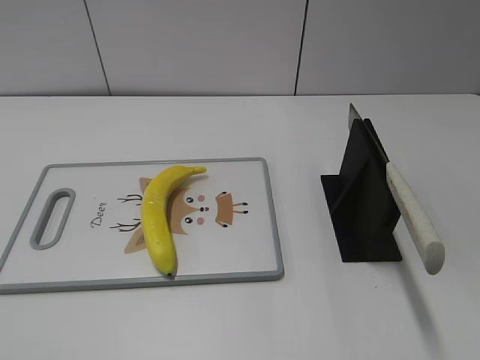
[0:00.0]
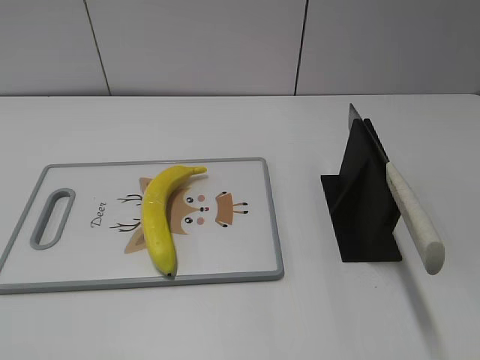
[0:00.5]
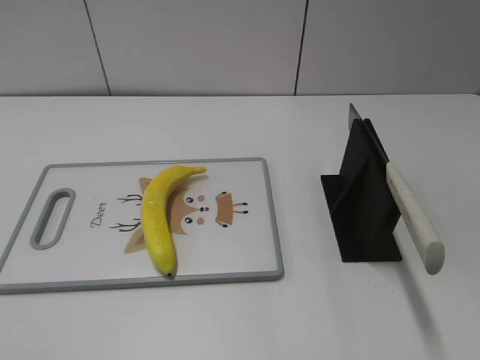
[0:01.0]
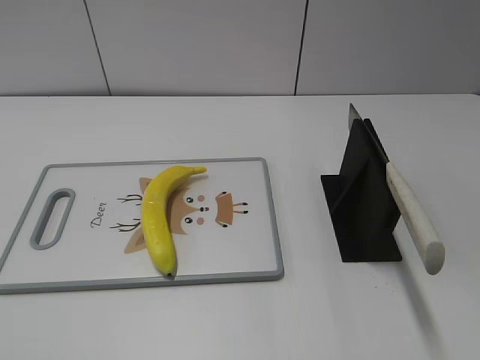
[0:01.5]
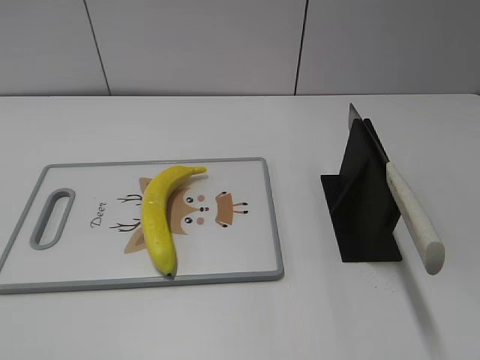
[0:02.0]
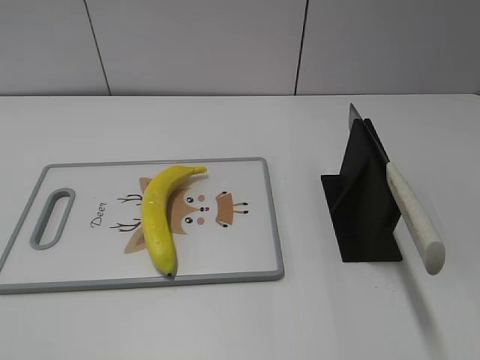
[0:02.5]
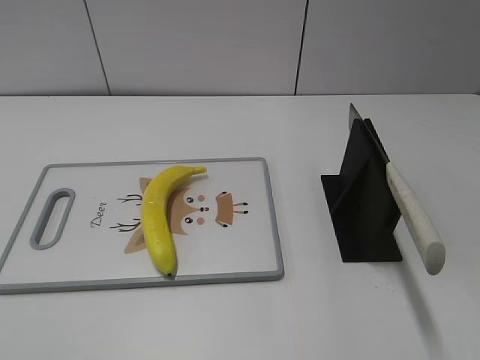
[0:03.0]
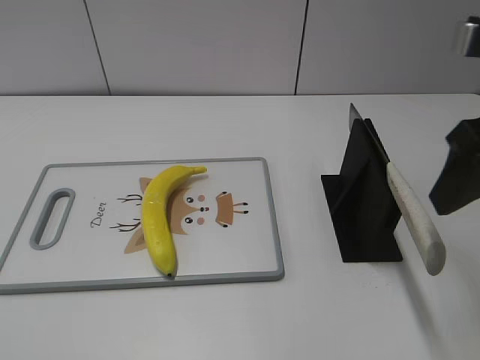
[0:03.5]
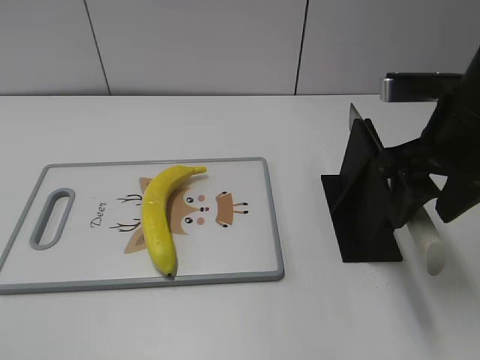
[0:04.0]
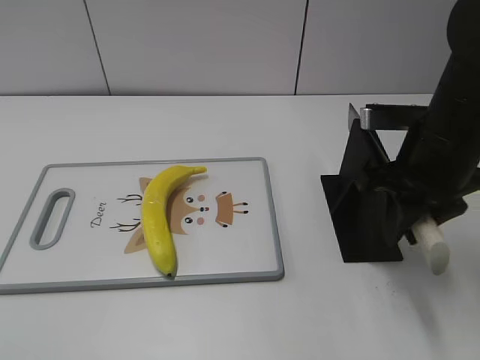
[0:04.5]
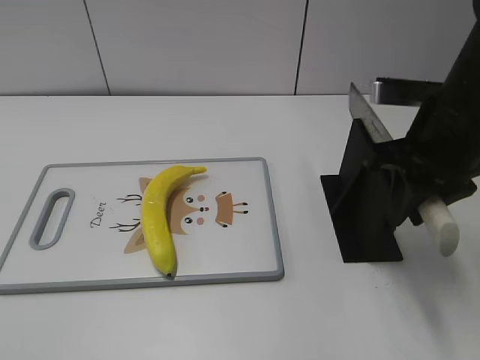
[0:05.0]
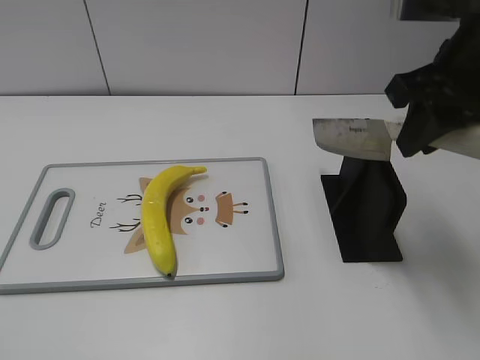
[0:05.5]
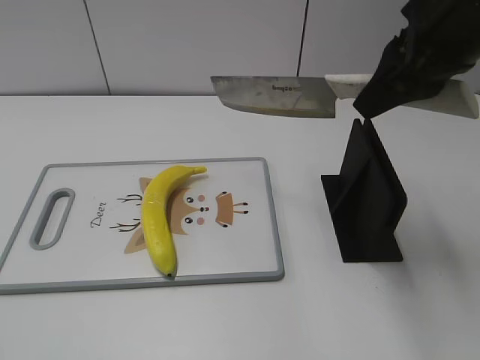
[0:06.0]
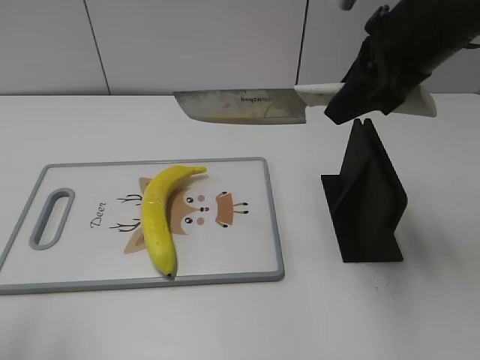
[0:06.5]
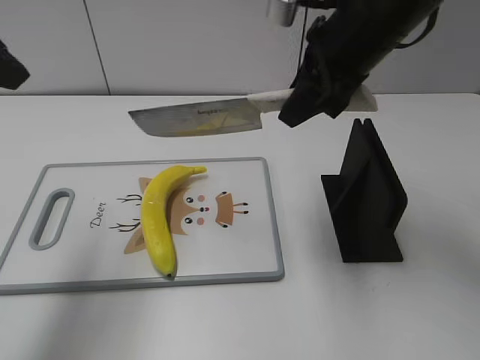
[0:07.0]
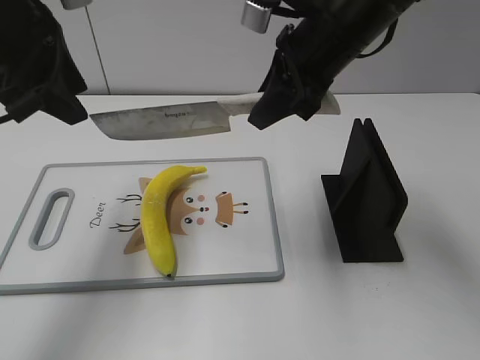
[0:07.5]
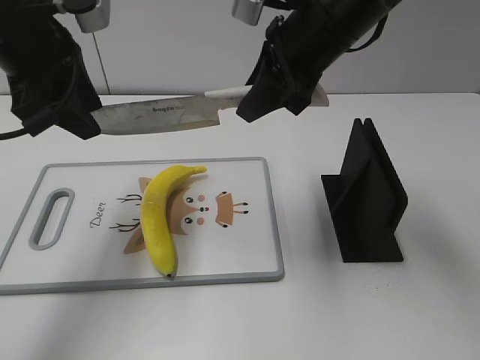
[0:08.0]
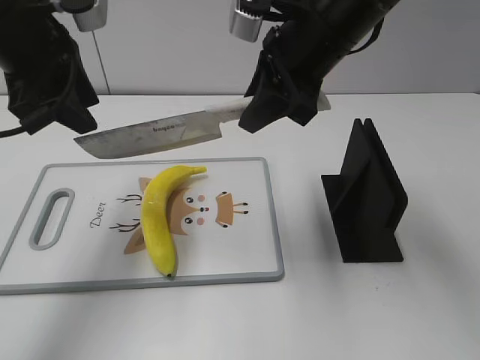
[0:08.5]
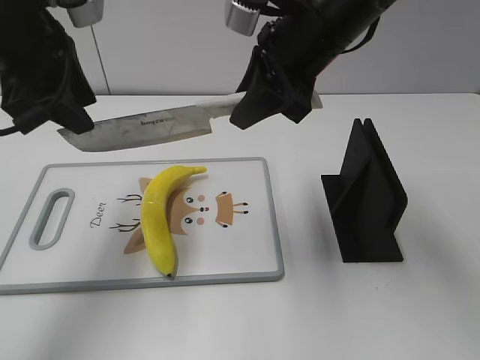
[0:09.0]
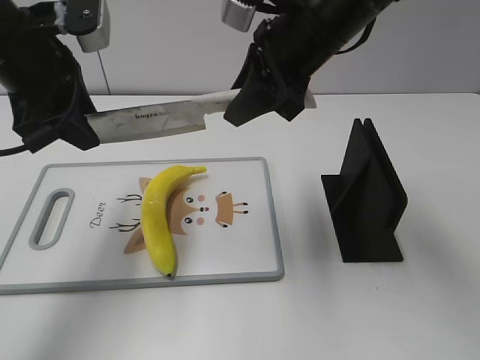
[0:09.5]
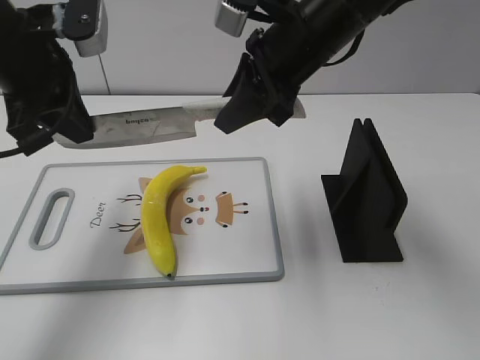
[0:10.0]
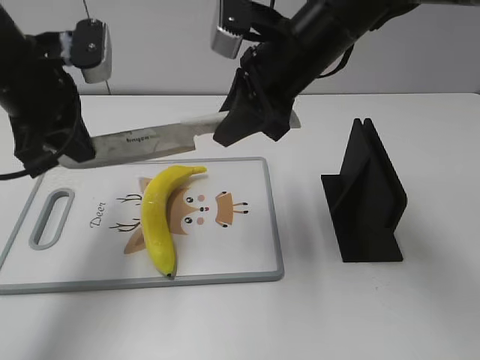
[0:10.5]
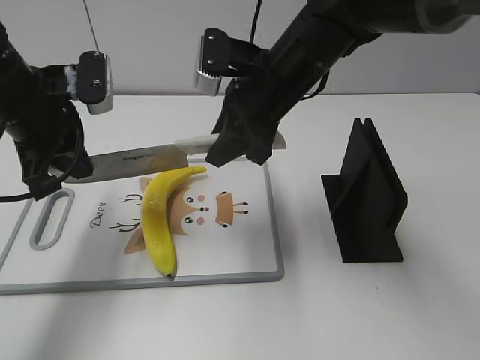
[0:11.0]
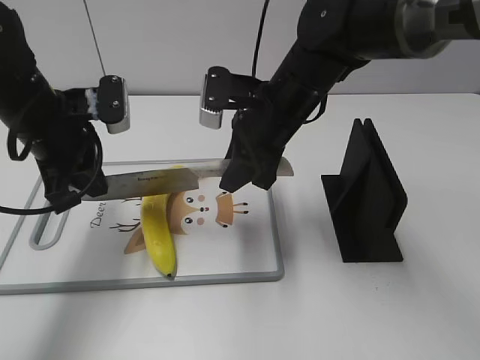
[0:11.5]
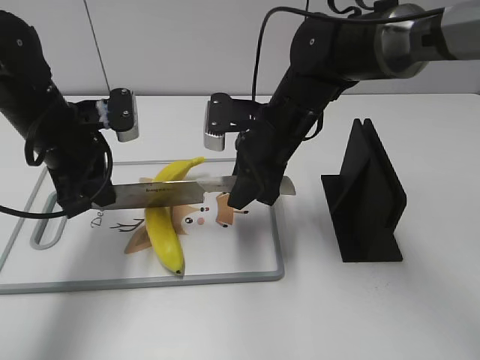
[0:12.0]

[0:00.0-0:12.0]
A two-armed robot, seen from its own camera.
Task of the whole recording: cut plastic banana.
Step, 0:00.0 to 0:05.5: Grab the knife handle with your right hand.
0:02.0 to 0:04.0: The right gripper moves forward, about 25 cm.
0:04.0 to 0:06.0: The right gripper is displaced upward by about 10 cm, and closes.
0:06.0 to 0:08.0: The left gripper shifts roughly 30 cm forward; the right gripper goes about 10 cm to the left, forward and downward.
0:08.0 to 0:10.0: The left gripper closes.
0:10.0 to 0:12.0: The grippers both shift downward by approximately 10 cm.

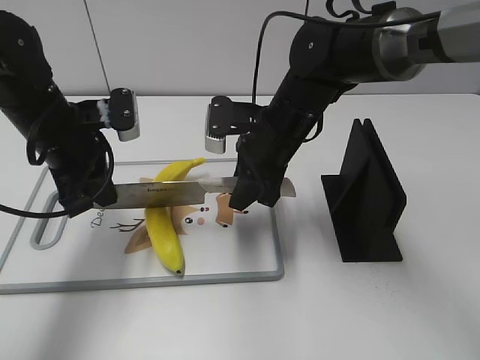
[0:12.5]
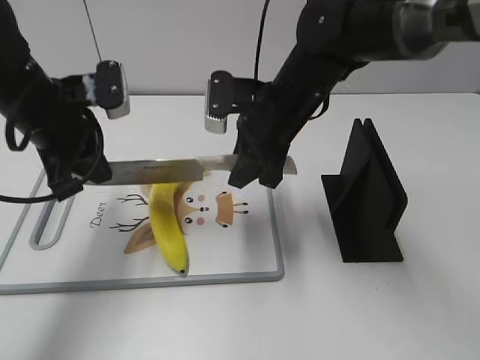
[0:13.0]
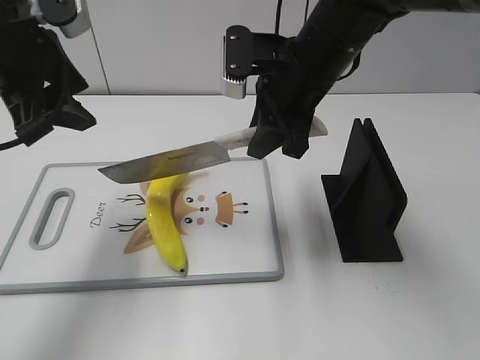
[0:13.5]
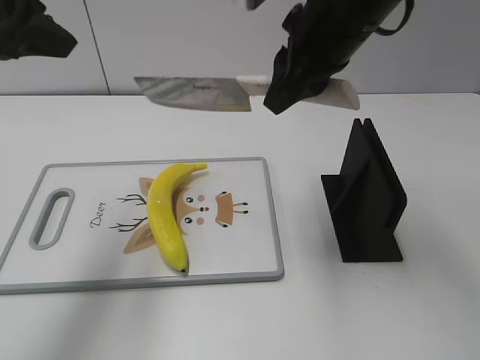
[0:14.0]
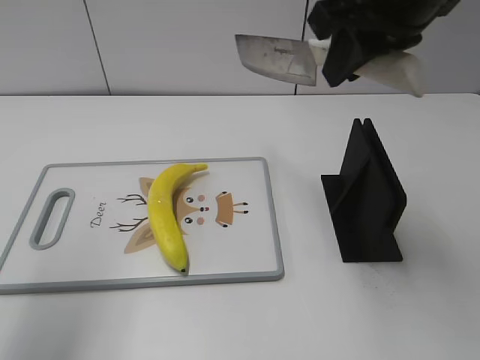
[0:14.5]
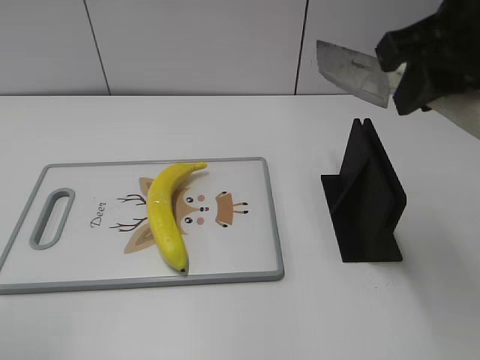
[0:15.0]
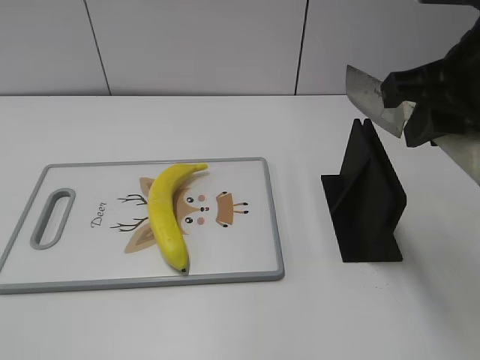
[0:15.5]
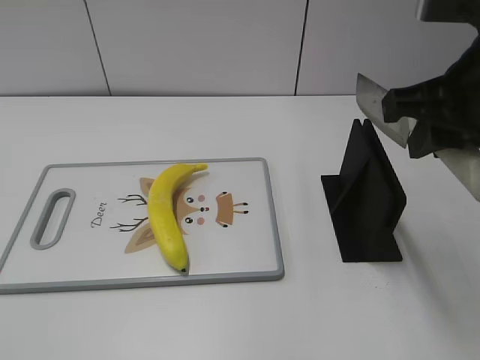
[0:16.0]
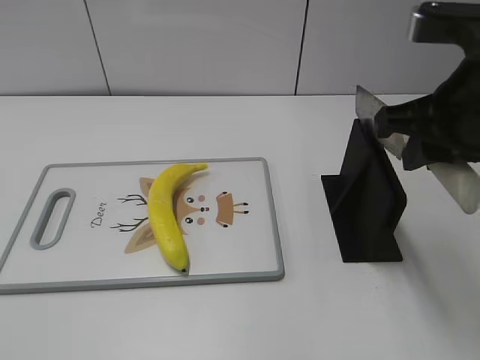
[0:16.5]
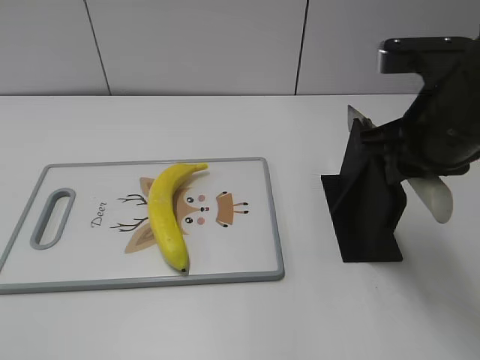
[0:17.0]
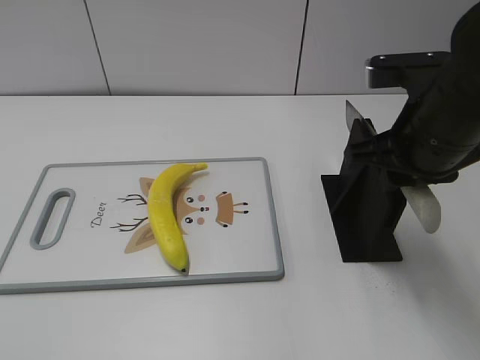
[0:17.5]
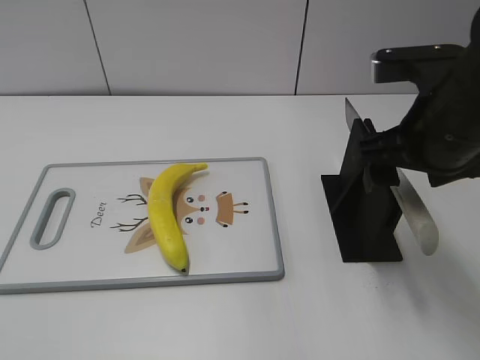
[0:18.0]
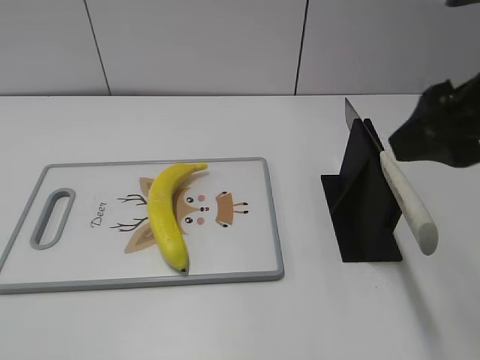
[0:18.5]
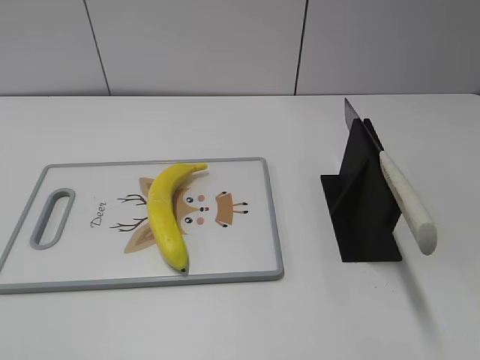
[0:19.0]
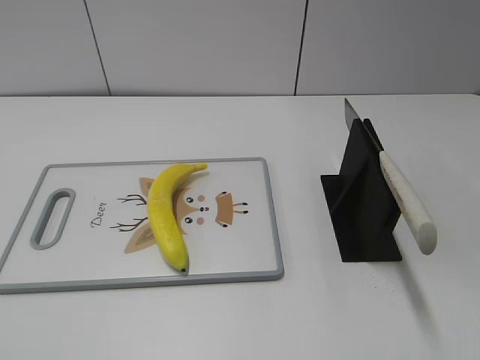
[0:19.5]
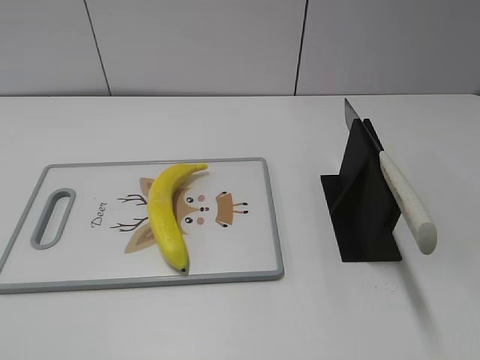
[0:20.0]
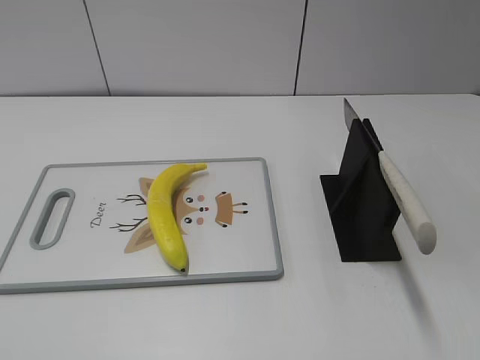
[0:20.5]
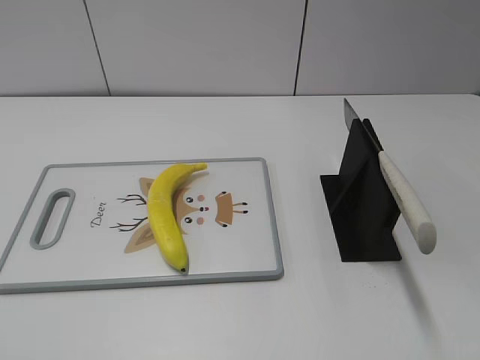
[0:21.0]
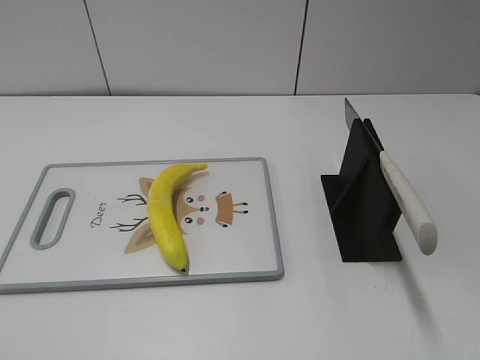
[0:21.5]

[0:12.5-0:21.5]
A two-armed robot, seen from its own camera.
Task of the whole recording: cut plastic banana.
Step, 0:13.0 to 0:15.0: Cut the banana with your right hand.
Step, 0:15.5 to 0:16.5: Lift the knife with your right hand.
Step, 0:17.0 to 0:21.5: Place the knife on the storage rack with your right hand.
0:12.5 to 0:14.5: The right gripper goes about 20 cm upward. The left gripper heads upward and backward, covering roughly 25 cm, and opens its fingers.
0:14.5 to 0:17.0: The right gripper goes some 10 cm downward; the left gripper goes roughly 20 cm backward.
0:17.0 to 0:19.5: The right gripper moves backward and to the right, roughly 25 cm, and opens.

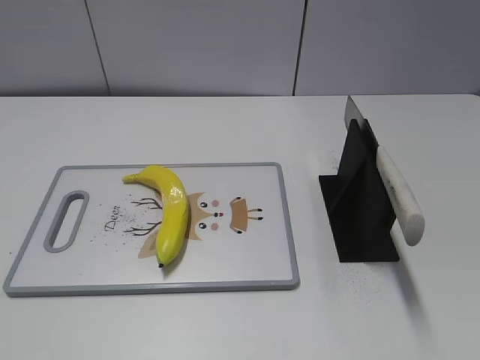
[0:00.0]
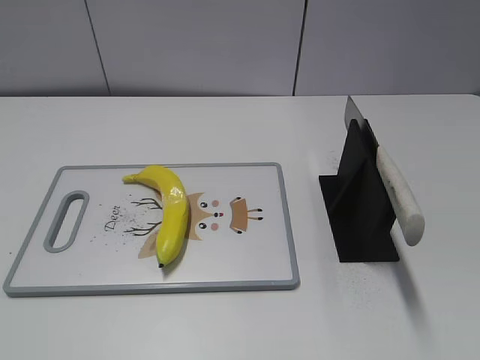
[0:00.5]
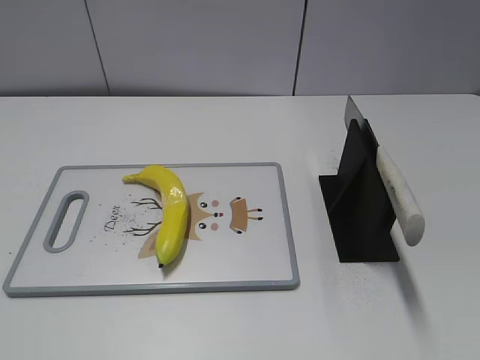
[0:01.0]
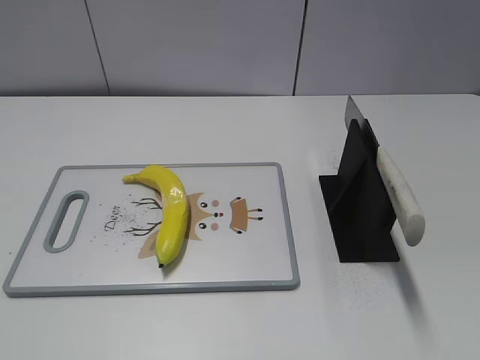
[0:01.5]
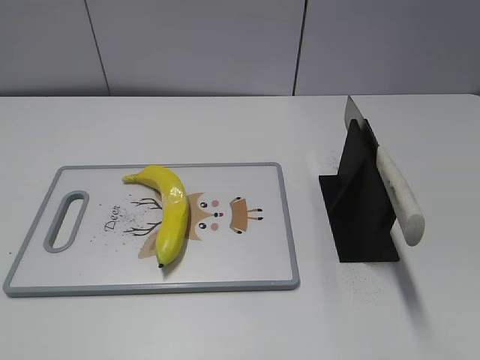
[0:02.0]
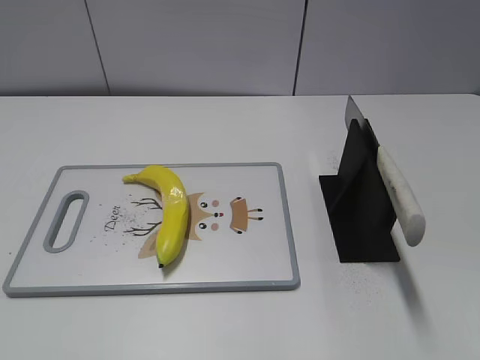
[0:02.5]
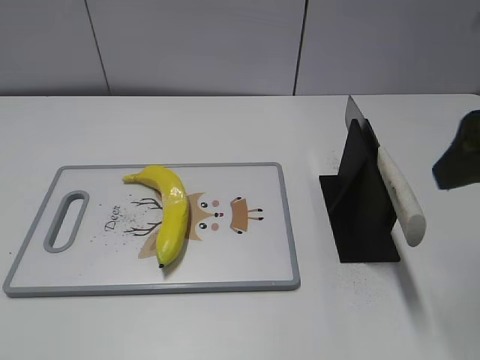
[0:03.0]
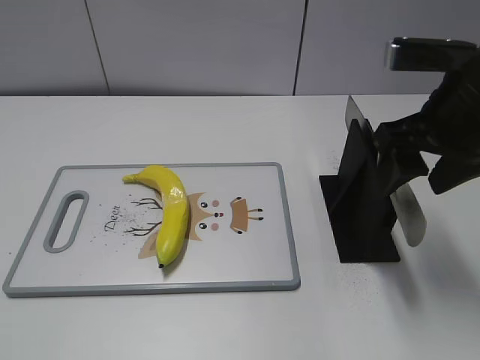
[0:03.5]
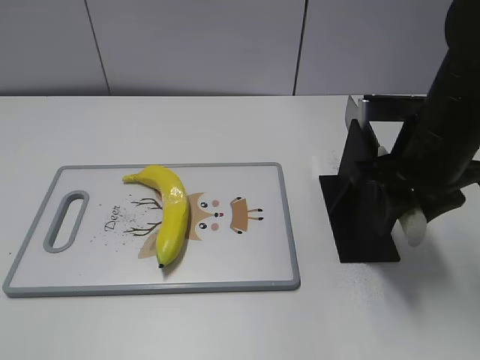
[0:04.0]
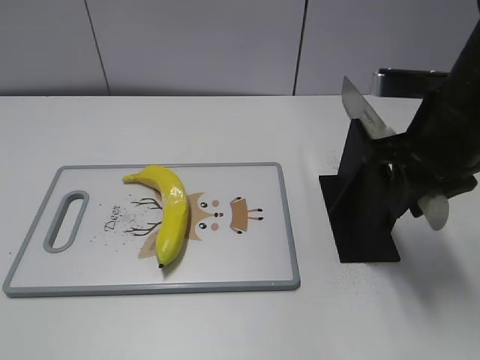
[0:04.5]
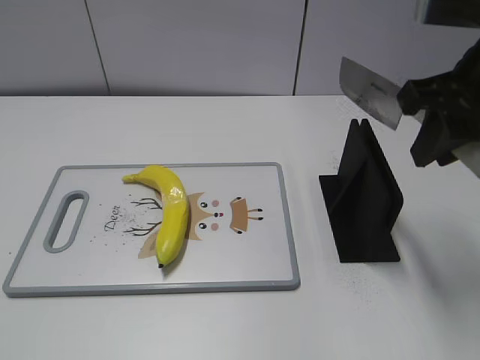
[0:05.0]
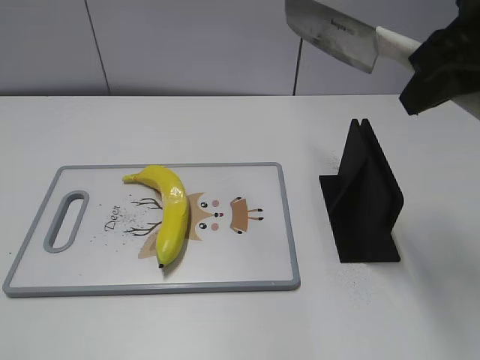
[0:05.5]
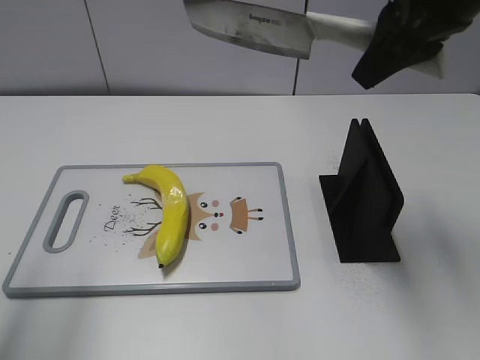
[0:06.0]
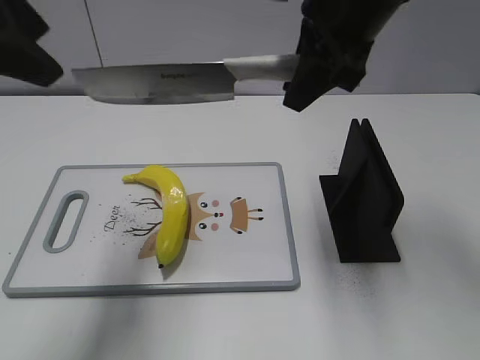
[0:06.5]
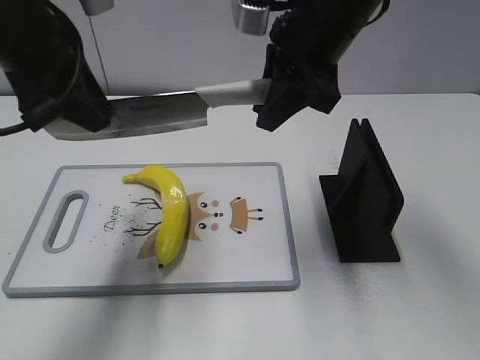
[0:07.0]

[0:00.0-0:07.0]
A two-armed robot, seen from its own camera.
Task of the whole recording: cut plastic banana.
Step, 0:00.0 to 0:05.0: Grab the knife handle with your right hand.
0:02.0 to 0:03.5: The right gripper travels forward and to the left by approximately 25 cm.
0:03.5 to 0:05.0: The right gripper closes up.
0:05.0 to 0:07.0: The left gripper is displaced forward and to the right by about 35 cm, while the right gripper goes about 15 cm to the left and forward.
